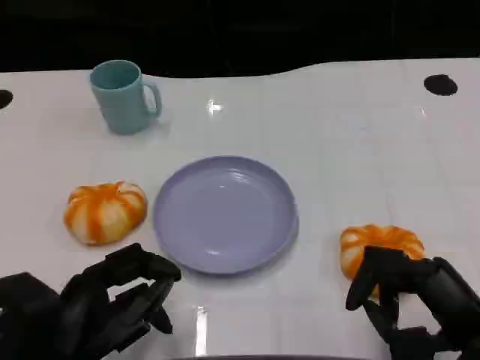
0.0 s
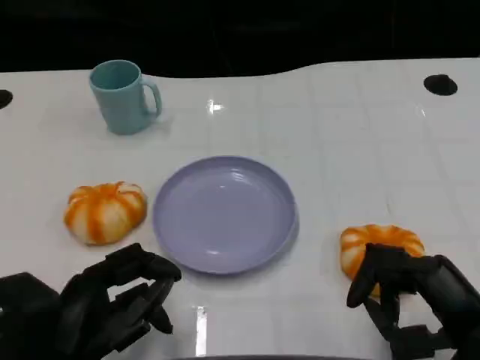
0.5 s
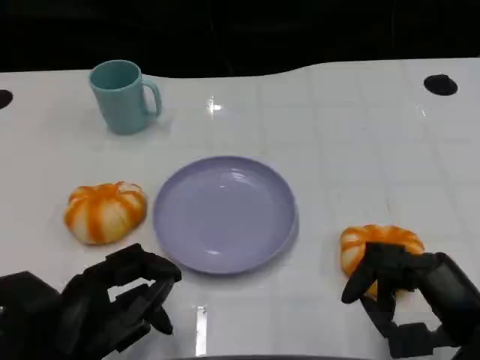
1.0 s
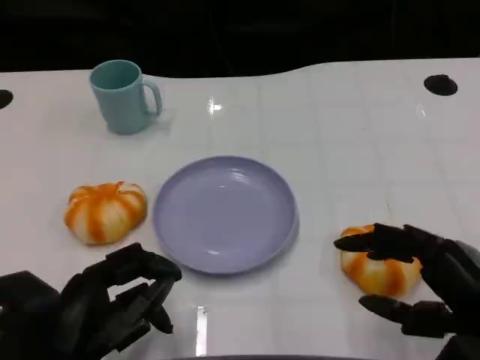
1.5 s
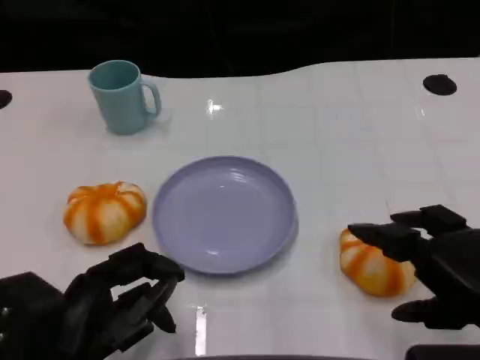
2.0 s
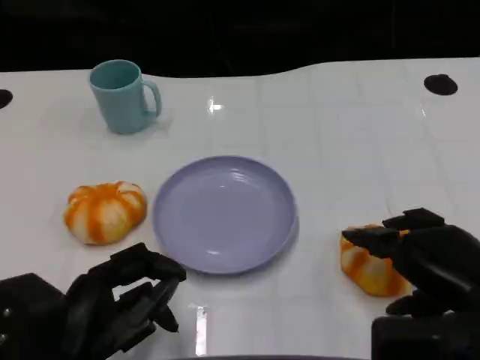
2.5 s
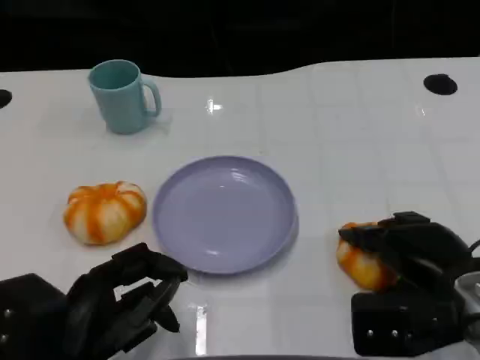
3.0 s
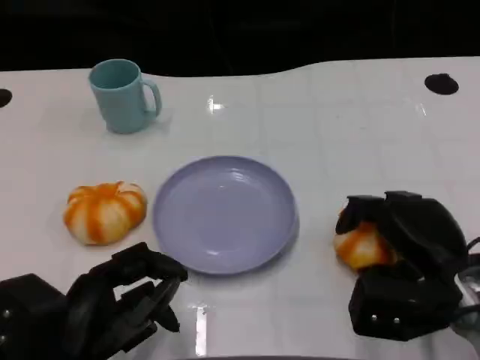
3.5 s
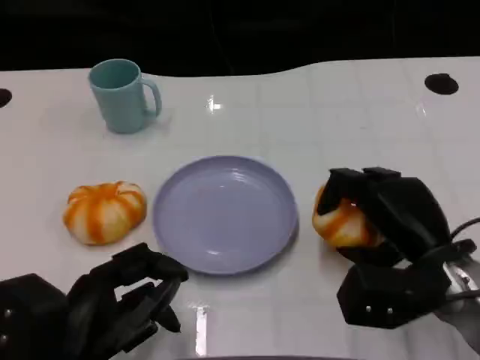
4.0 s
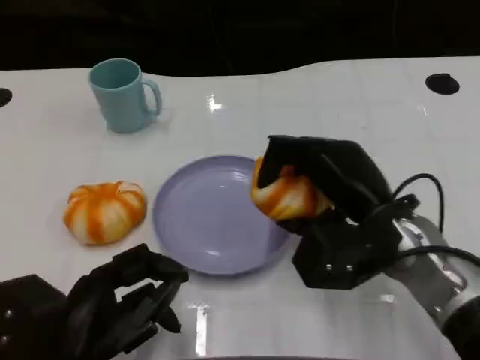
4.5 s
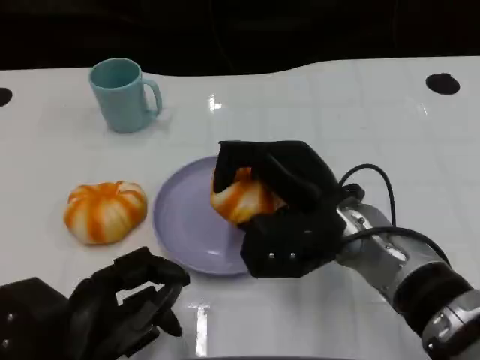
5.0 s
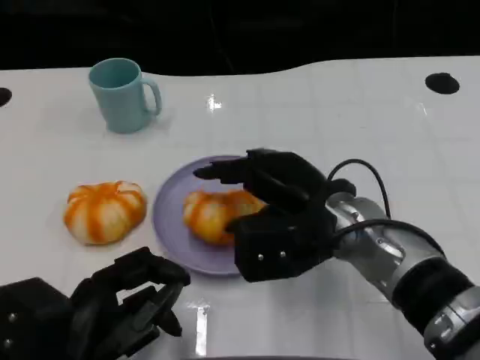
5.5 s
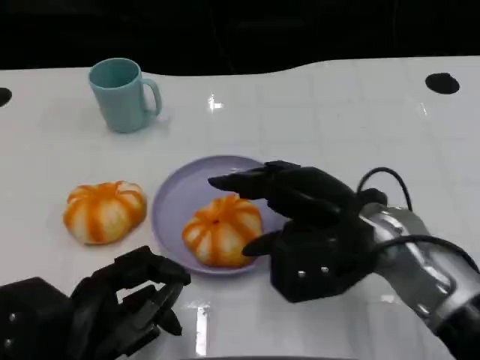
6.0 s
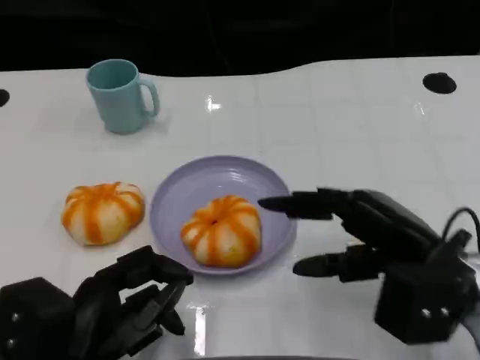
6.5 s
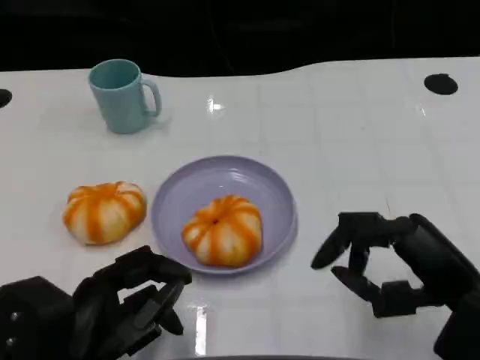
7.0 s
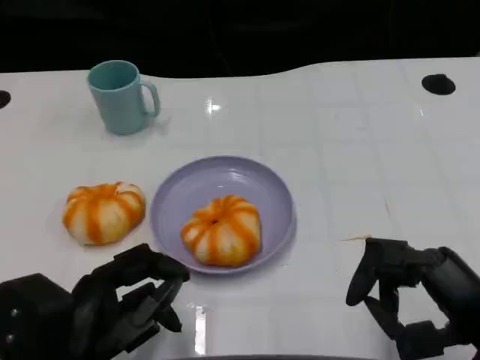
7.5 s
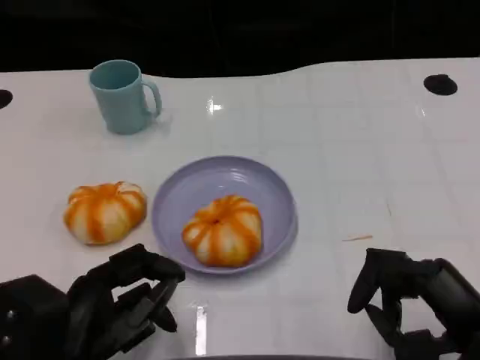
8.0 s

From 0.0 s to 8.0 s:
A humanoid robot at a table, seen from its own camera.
Task of the whole recording: Grasp the bread from the table and place it into the plate.
From 0.0 s to 2.0 s: The right hand shifts approximately 5 cm upward.
From 2.0 s to 4.0 s: The right hand travels forward, downward and to the left by about 10 cm.
From 4.0 s to 6.0 s: The right hand goes about 10 cm to the left and upward.
From 6.0 s to 8.0 s: The right hand travels backward and to the right by approximately 15 cm.

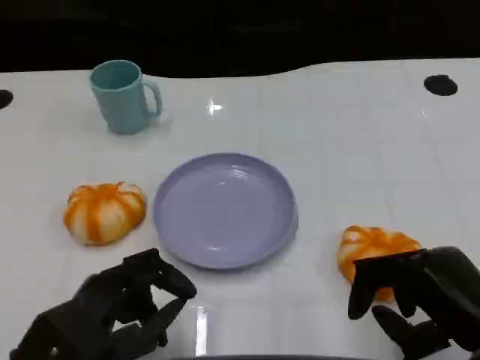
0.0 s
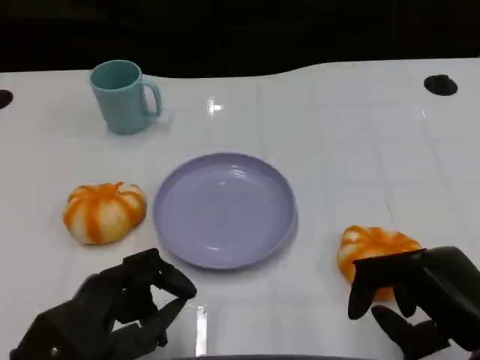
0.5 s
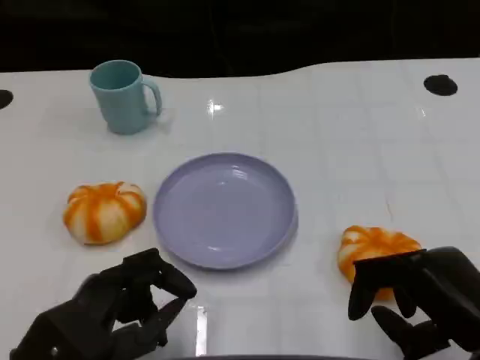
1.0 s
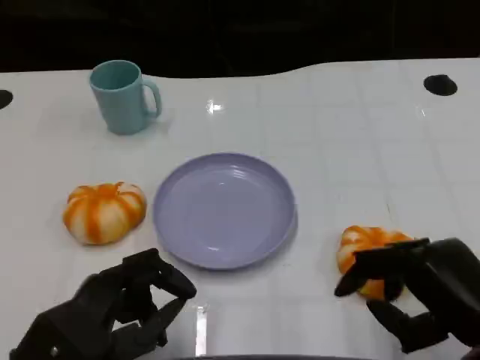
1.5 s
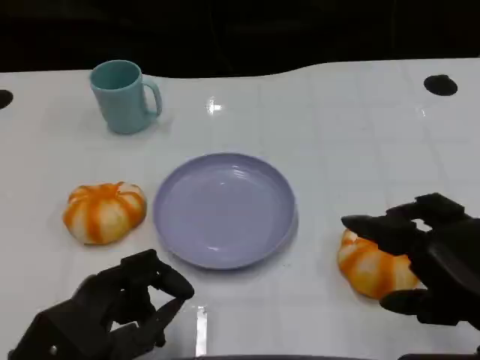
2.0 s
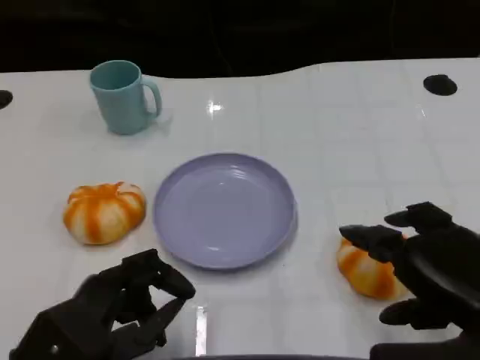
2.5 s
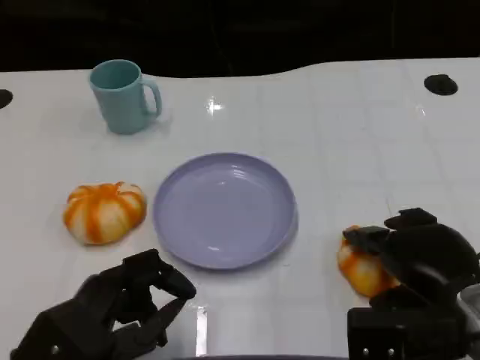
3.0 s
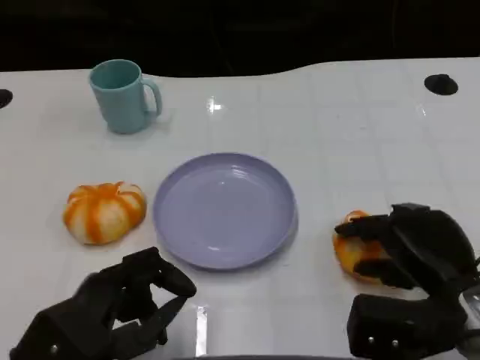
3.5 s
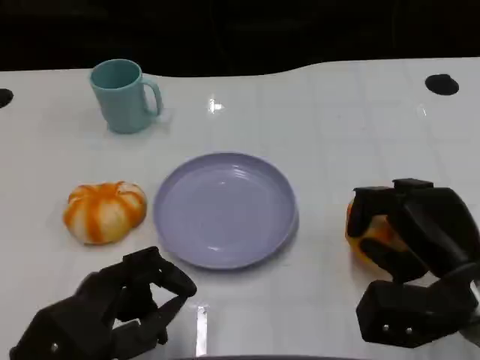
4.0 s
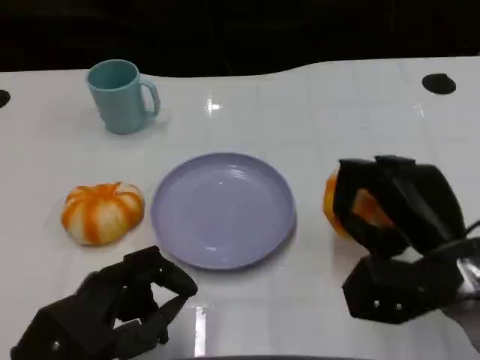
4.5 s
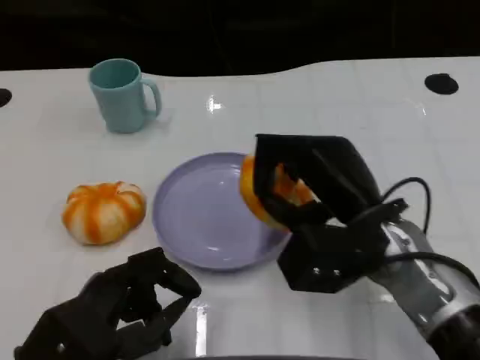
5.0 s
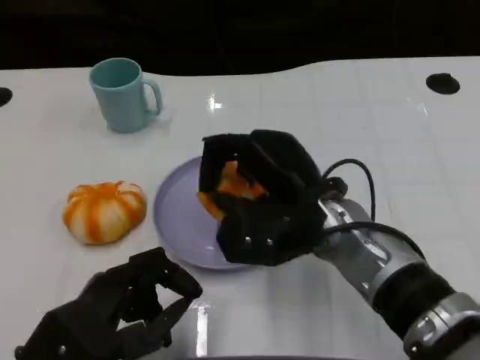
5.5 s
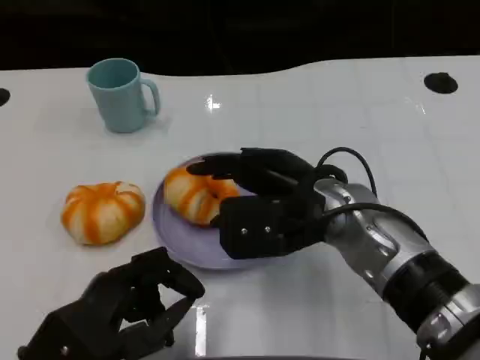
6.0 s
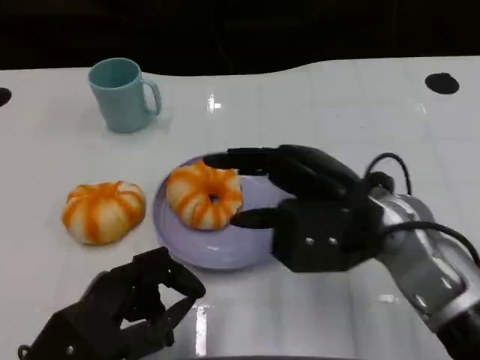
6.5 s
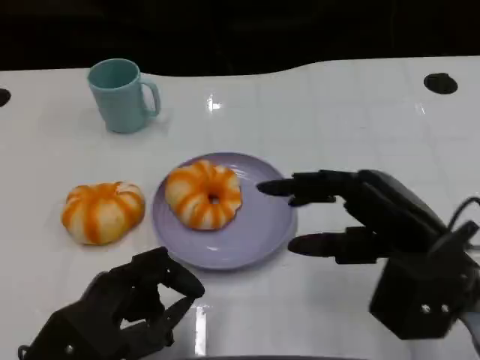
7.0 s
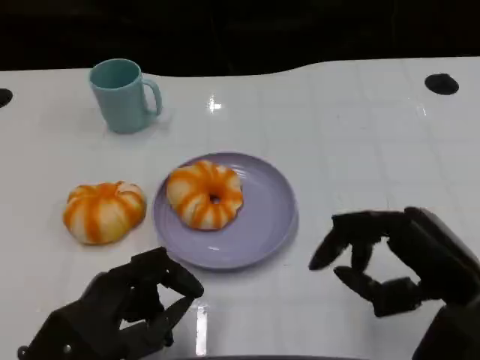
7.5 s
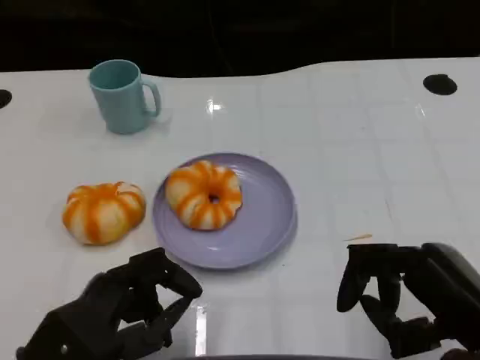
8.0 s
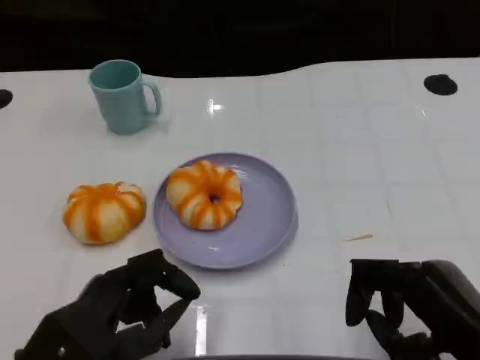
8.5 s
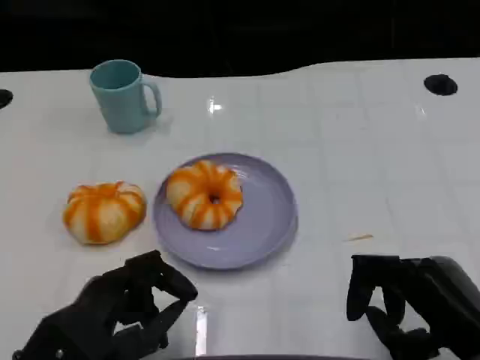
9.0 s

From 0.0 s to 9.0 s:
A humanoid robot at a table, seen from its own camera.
Task of the whole recording: Grasp the bread from the table and place it into the plate.
From 0.0 s to 2.0 s: The right hand heads upward, covering approximately 5 cm.
From 2.0 s to 4.5 s: The right hand heads forward, covering about 10 cm.
From 4.5 s to 7.0 s: The right hand reaches about 10 cm to the left, then returns.
From 7.0 s to 9.0 s: The right hand goes approximately 10 cm backward and downward.

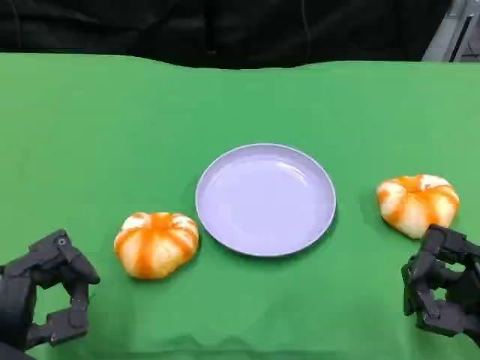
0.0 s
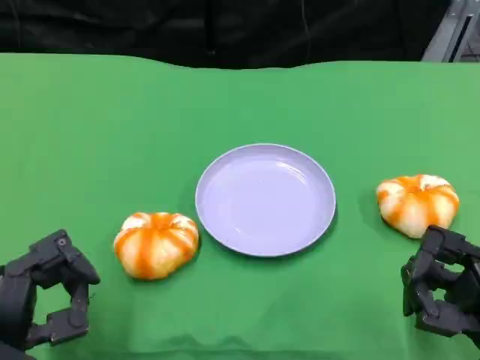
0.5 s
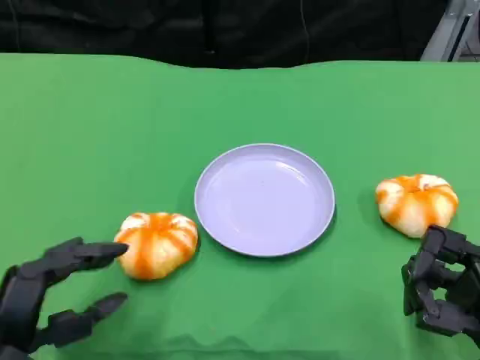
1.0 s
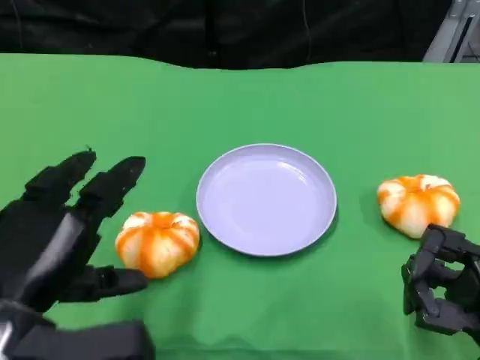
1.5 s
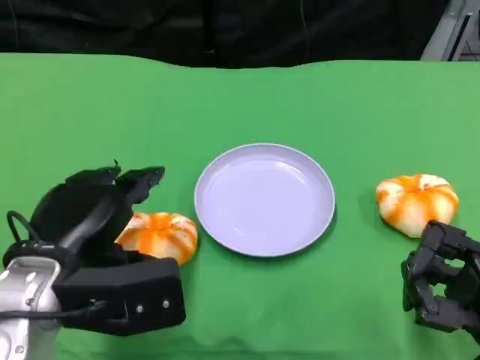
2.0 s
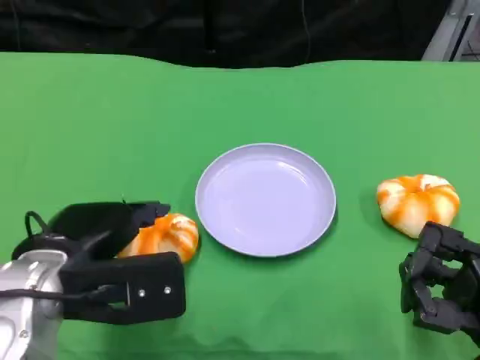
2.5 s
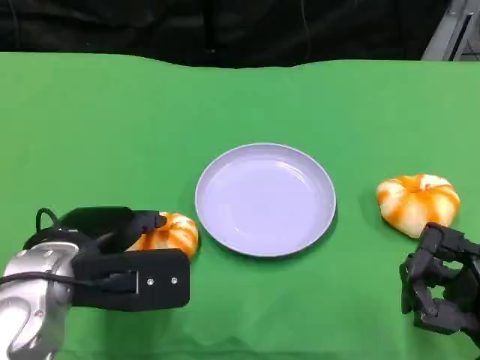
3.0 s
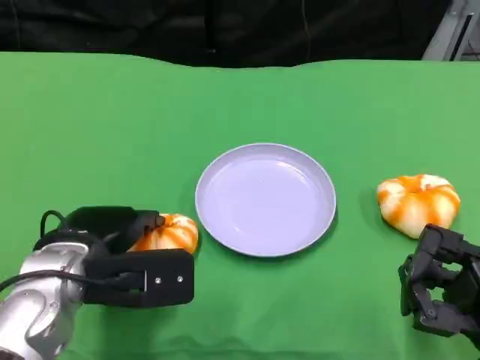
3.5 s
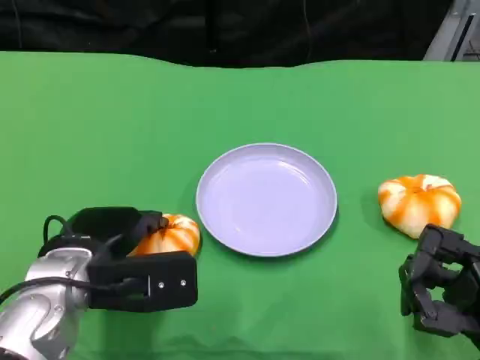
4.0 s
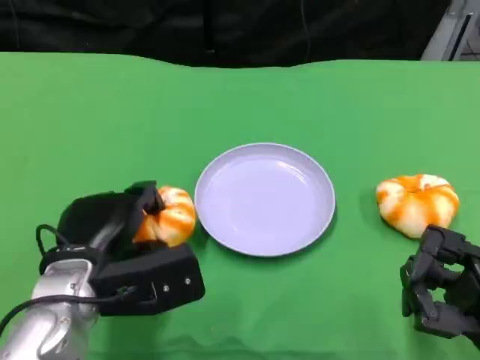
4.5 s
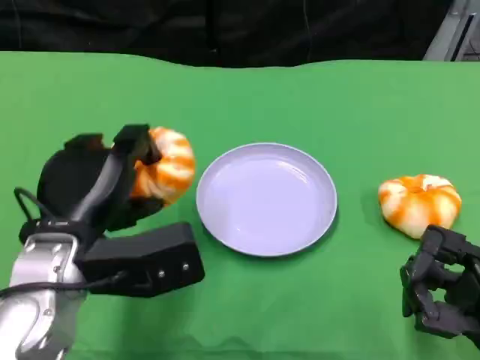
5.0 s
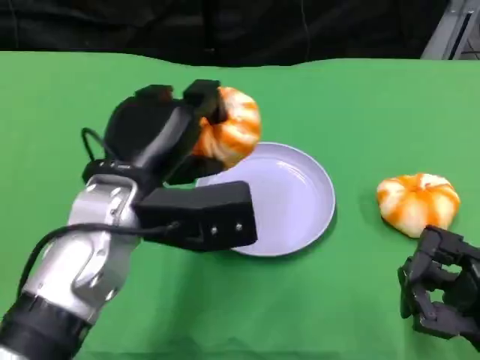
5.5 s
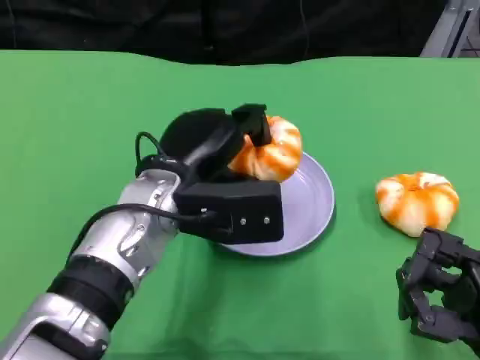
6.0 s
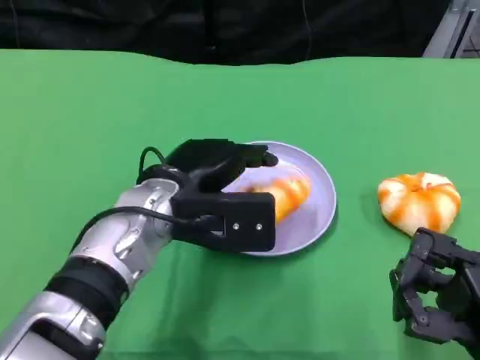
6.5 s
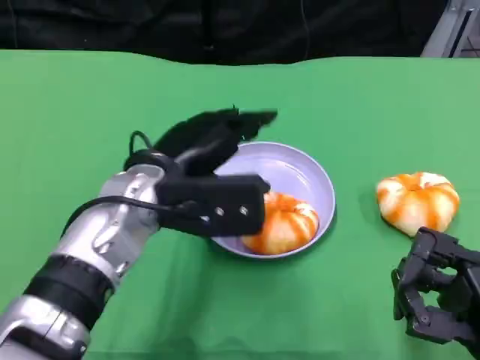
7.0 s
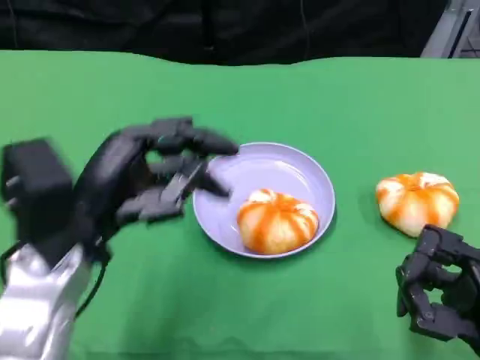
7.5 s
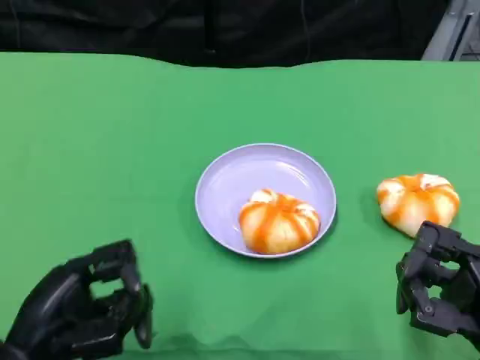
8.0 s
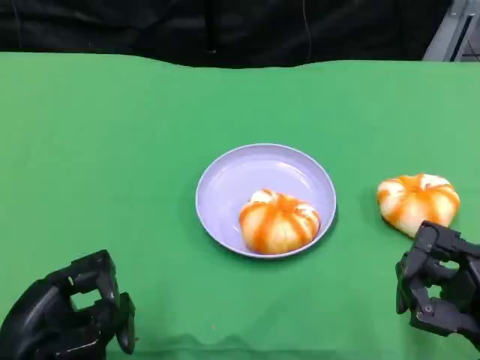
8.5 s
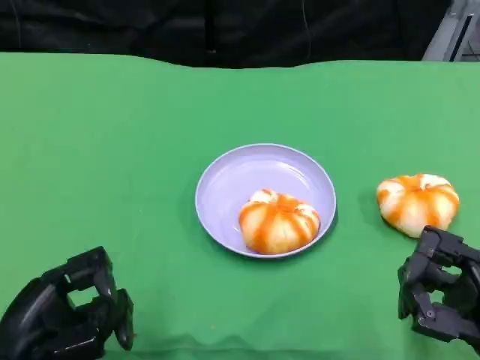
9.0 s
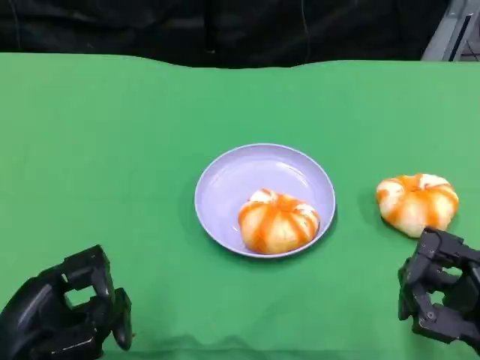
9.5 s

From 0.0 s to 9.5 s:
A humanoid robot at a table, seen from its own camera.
Task of the whole recording: Grasp the bread from the table and place it into the plate.
From 0.0 s to 2.0 s: The left hand moves upward and forward, approximately 10 cm.
From 2.0 s to 4.0 s: The left hand ends up about 5 cm from where it was.
From 4.0 s to 5.5 s: The left hand travels upward and to the right by approximately 10 cm.
From 5.5 s to 7.5 s: The left hand shifts about 5 cm to the left.
From 7.5 s to 9.5 s: The left hand moves downward, backward and to the left, roughly 15 cm.
